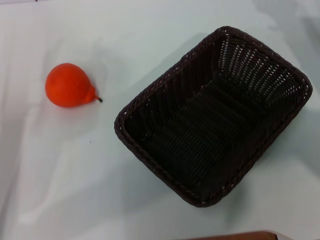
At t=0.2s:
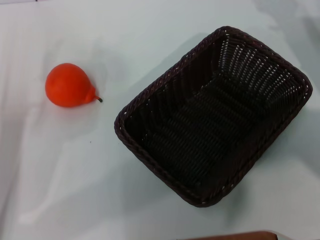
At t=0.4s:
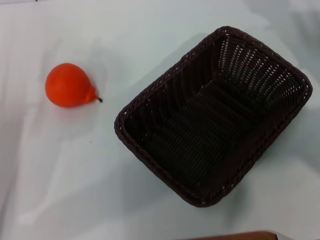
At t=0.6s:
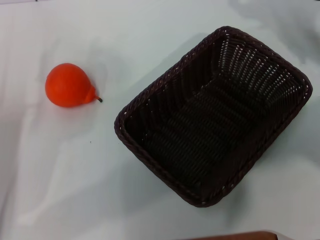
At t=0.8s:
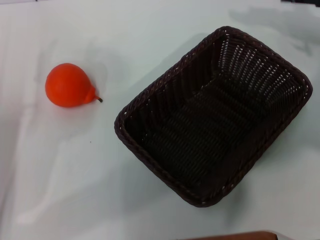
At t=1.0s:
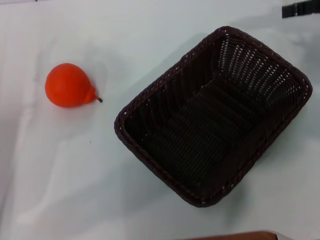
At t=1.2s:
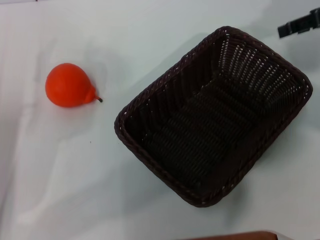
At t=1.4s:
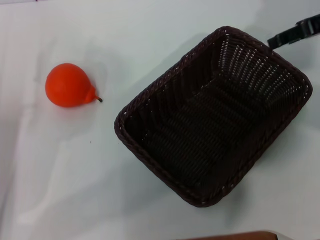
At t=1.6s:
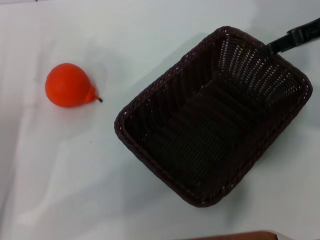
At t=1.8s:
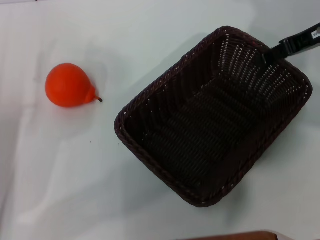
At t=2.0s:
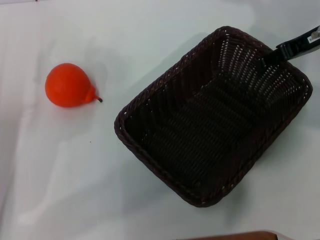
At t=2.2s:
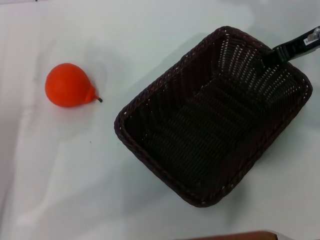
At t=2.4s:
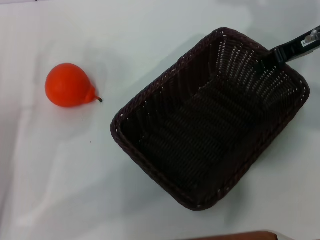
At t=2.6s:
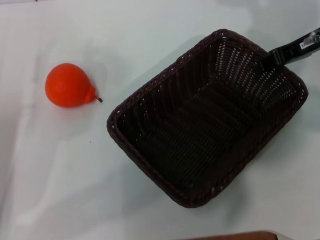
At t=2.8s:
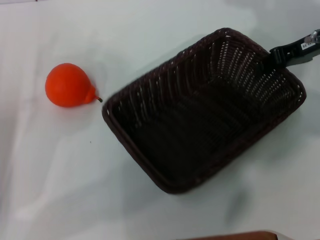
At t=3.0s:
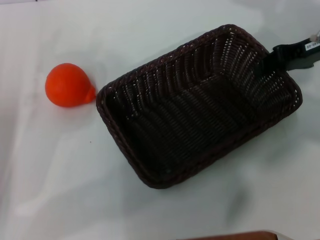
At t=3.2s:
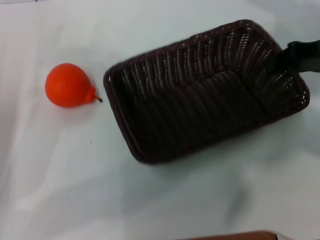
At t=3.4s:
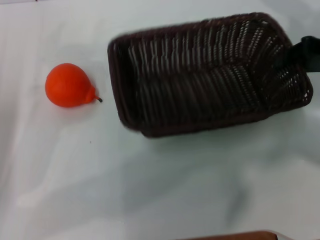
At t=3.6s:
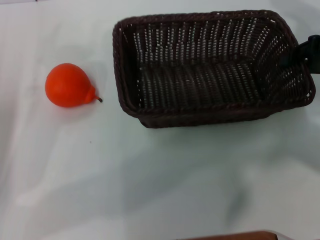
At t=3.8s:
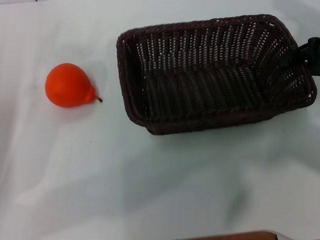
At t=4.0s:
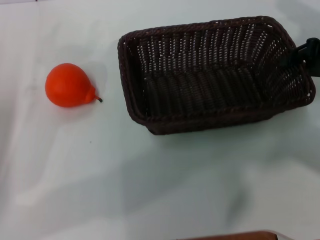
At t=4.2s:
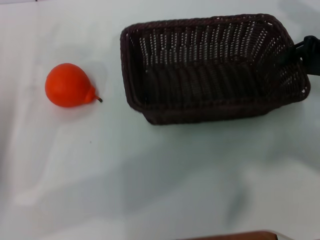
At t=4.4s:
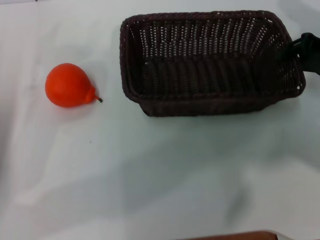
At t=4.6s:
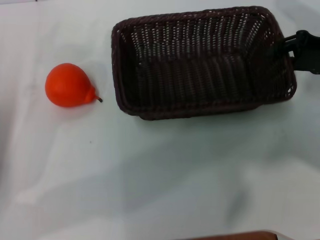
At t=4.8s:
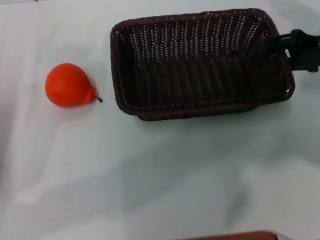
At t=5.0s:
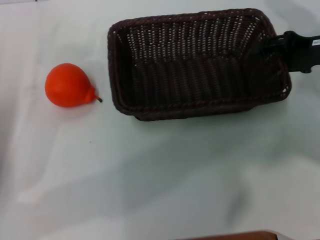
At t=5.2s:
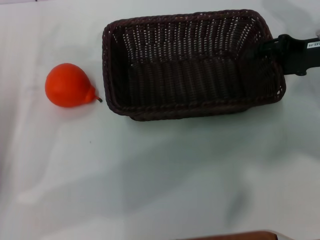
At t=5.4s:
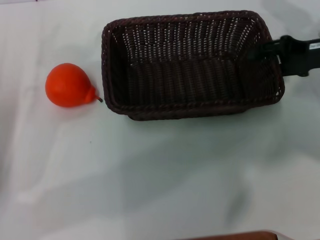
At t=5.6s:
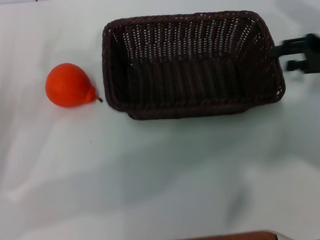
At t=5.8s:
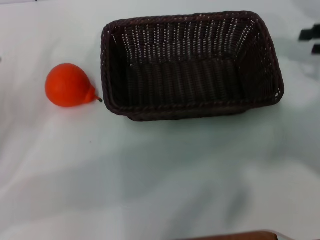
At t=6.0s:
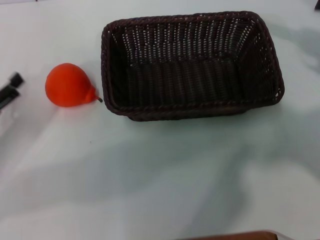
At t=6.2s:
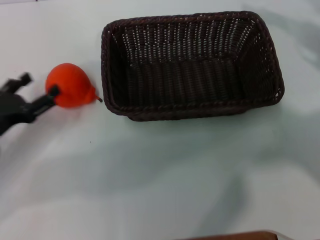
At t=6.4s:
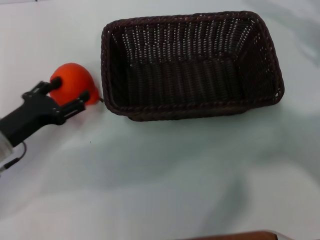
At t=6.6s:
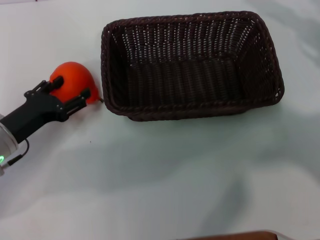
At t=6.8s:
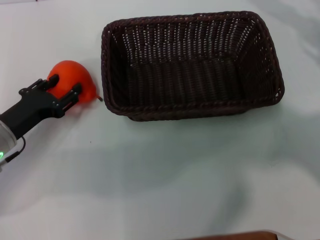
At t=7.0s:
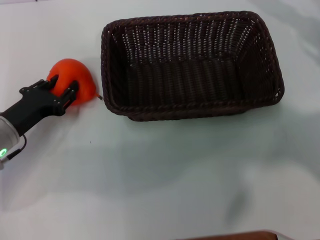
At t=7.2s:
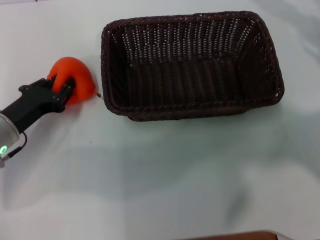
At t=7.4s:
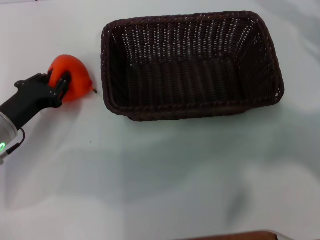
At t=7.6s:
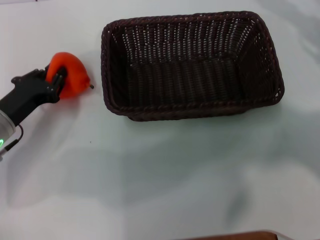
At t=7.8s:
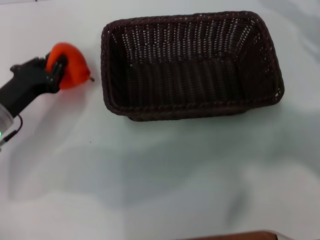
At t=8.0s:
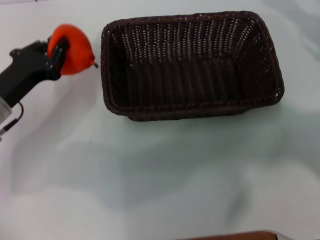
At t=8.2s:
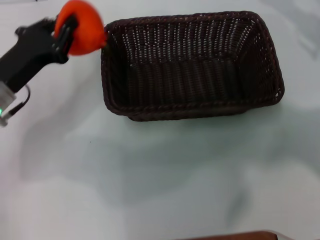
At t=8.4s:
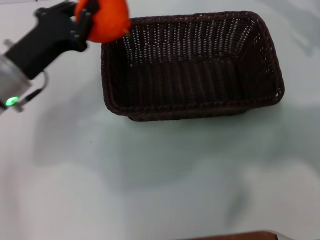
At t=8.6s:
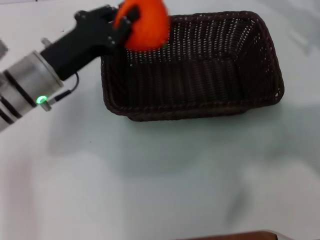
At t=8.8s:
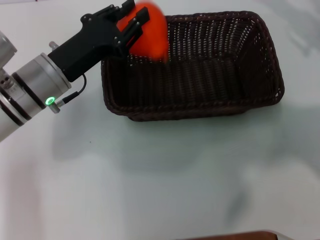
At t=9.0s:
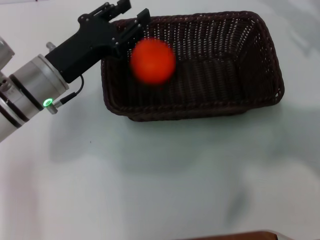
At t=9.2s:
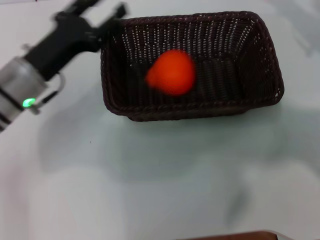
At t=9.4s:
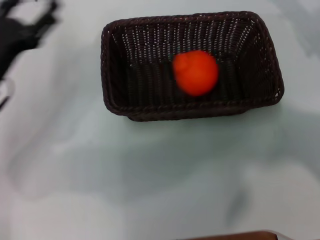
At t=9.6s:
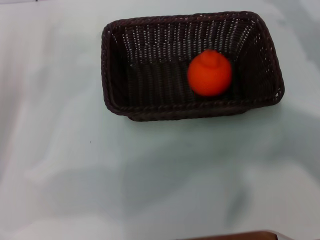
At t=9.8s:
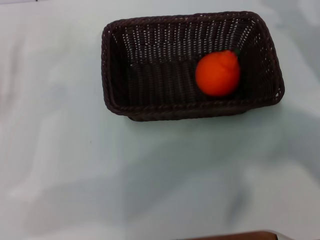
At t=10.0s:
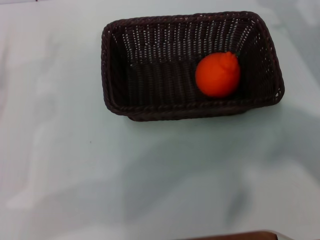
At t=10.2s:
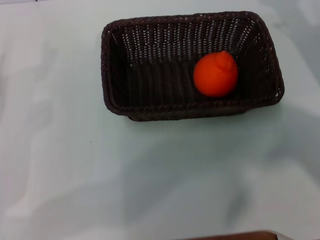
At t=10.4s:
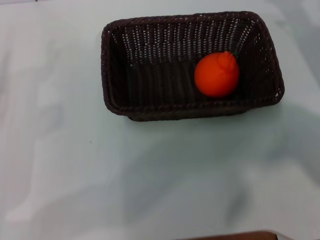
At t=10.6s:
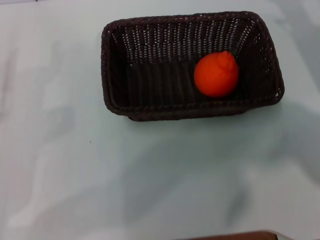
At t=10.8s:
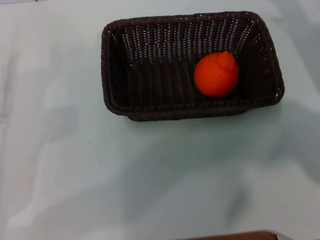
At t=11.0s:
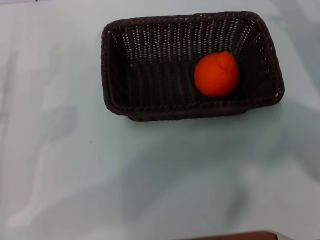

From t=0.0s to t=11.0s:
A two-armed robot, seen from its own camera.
Task of the whole recording: the right gripper pick up the black basket and place it horizontally in the middle of the table, the left gripper pick up the orange and place it into the black basket.
Step, from t=0.0s to t=3.0s: Pick up the dark basket with the right gripper.
Step, from t=3.2s to t=5.6s: Place the dark basket in the center of view with the right gripper.
Step, from t=5.8s to t=8.0s: Pick up the orange with the left gripper.
Step, from t=8.2s to t=9.0s: Place the orange into the dark basket with the left gripper.
From t=0.0s to t=1.6s: The right gripper moves upward, roughly 10 cm.
From t=1.6s to t=3.2s: The right gripper closes its fingers.
From t=4.8s to t=6.2s: The right gripper heads to the right, covering roughly 5 cm.
From t=6.2s to t=7.8s: The left gripper moves about 5 cm, and closes up.
From t=7.8s to t=9.4s: The left gripper travels to the right and back again, about 10 cm each way, and opens up.
From t=9.4s to t=11.0s: The right gripper opens. The left gripper is displaced backward and to the left by about 10 cm.
